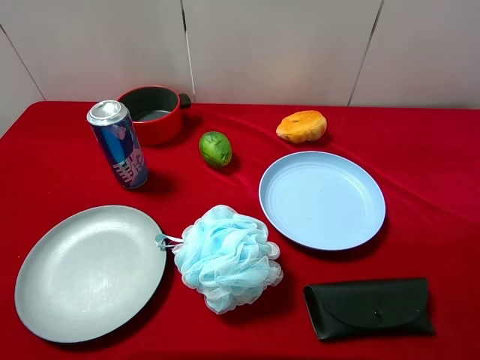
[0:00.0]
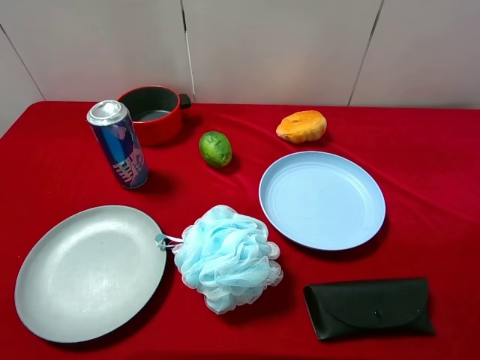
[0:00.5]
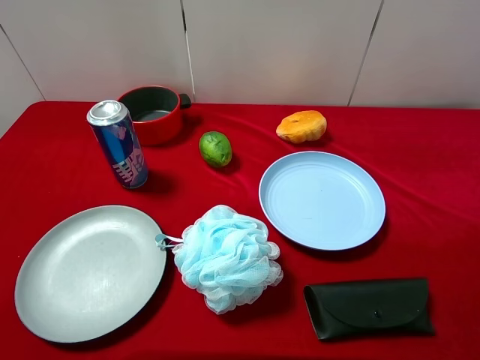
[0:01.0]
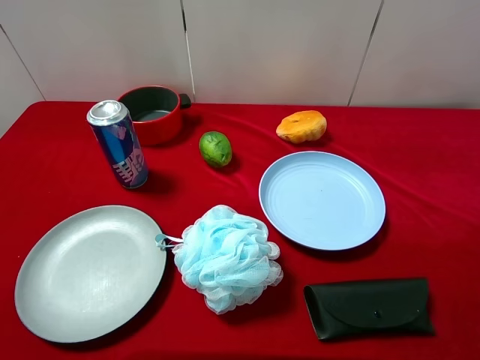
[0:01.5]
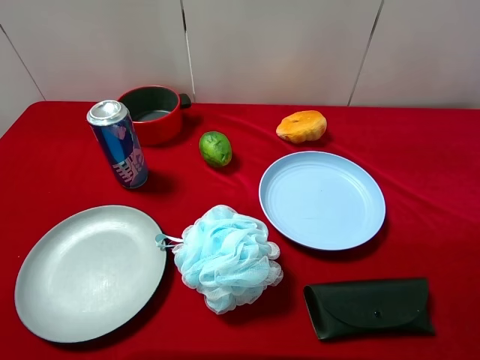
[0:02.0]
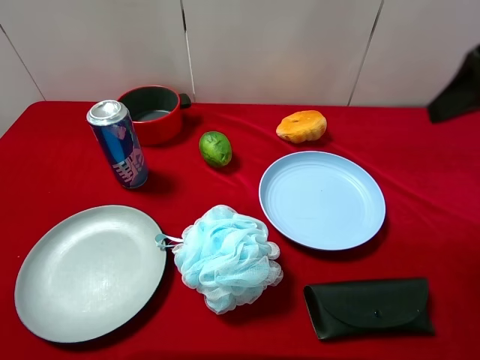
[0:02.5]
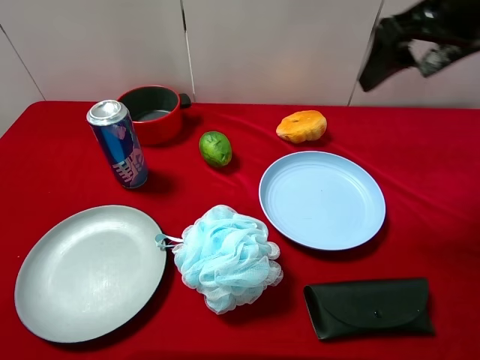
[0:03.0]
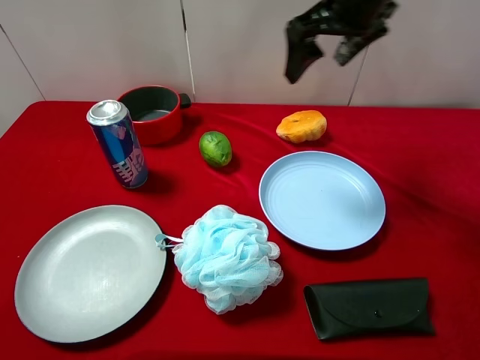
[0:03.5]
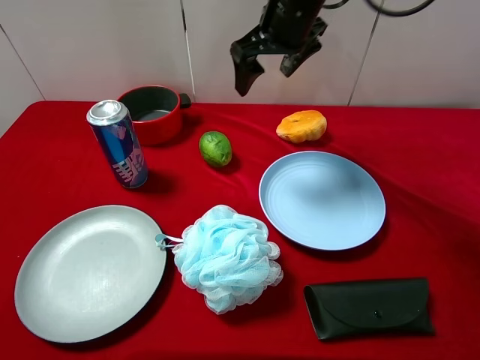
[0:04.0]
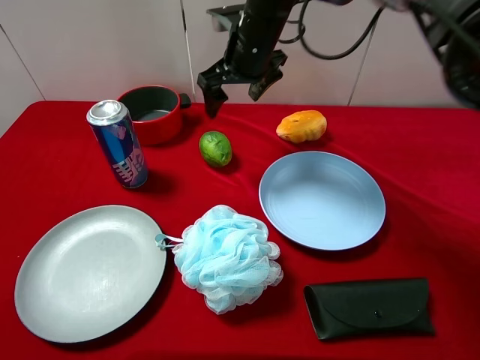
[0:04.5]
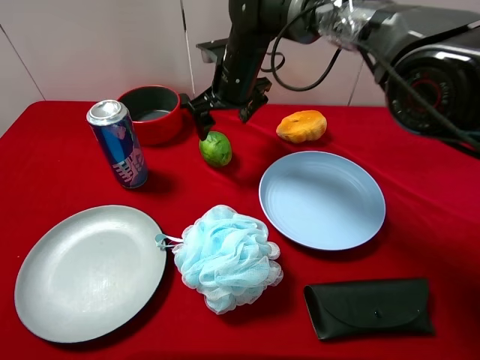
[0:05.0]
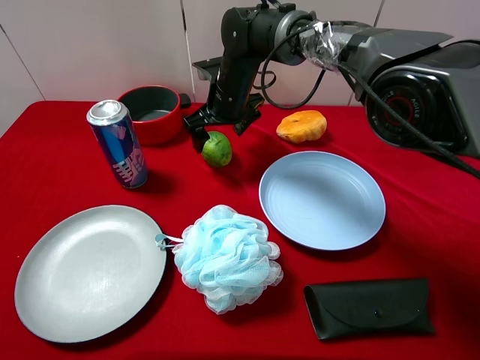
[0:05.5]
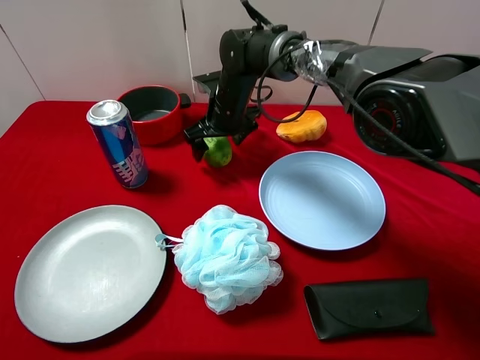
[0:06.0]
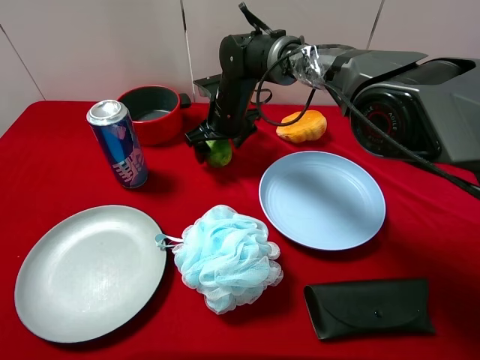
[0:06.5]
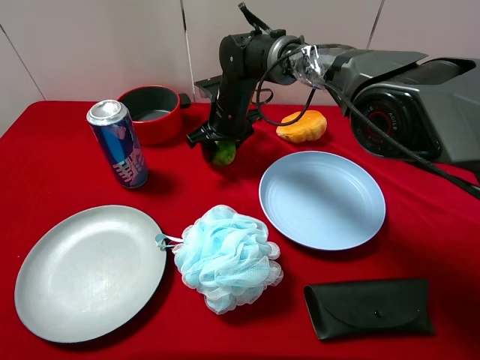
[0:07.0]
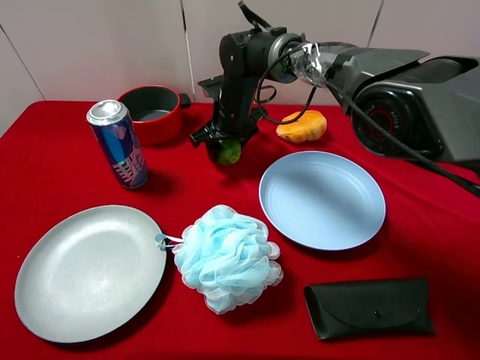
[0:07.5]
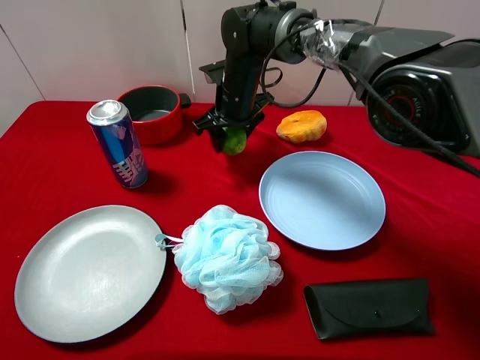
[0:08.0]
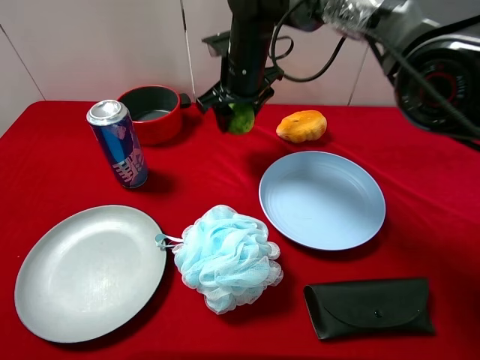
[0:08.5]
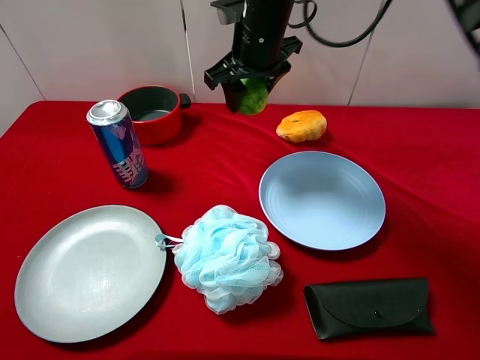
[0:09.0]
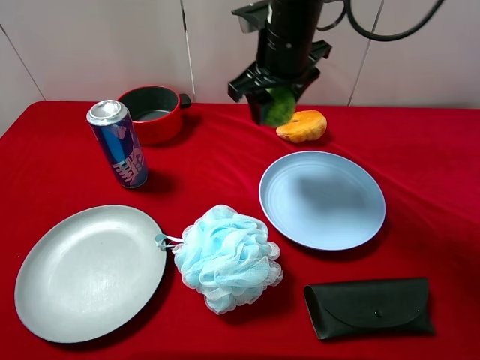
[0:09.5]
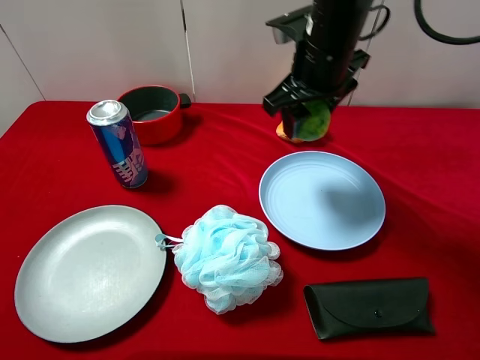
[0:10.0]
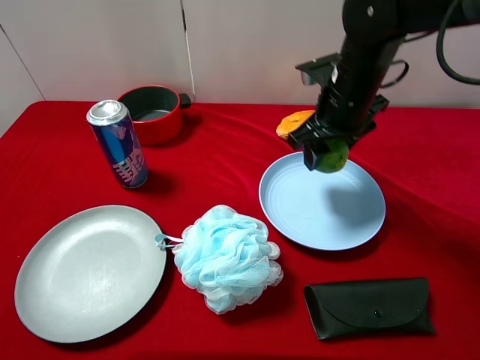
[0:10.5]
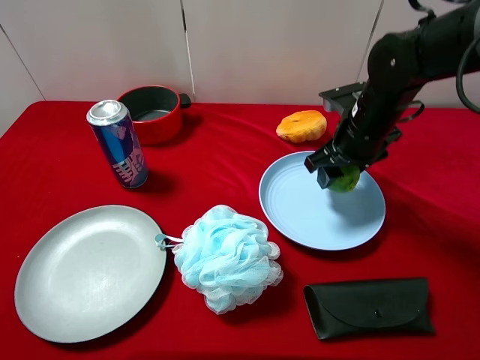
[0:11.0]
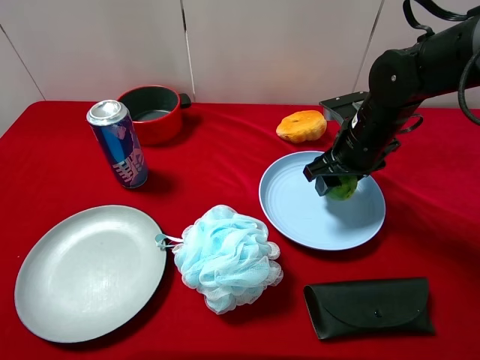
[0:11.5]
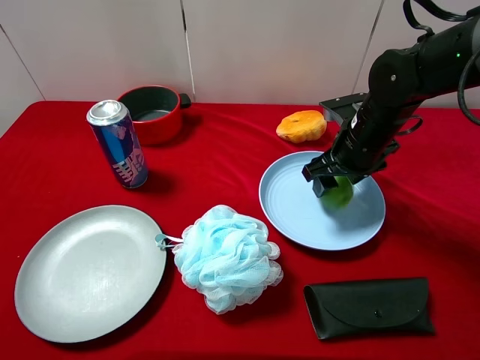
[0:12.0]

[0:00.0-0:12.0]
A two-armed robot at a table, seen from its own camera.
Task of the whole recording: pick up an item with a gripper and place it in a random container on the desktop.
0:02.0 to 0:04.0: The right gripper travels forward and to the left by about 35 cm.
0:04.0 to 0:06.0: The right gripper moves downward and to the left, some 20 cm.
0:06.0 to 0:08.0: The right gripper closes.
0:08.0 to 0:10.0: The right gripper travels to the right, upward and backward by about 15 cm.
0:10.0 to 0:12.0: The right gripper heads downward and to the right, covering roughly 15 cm, and opens up.

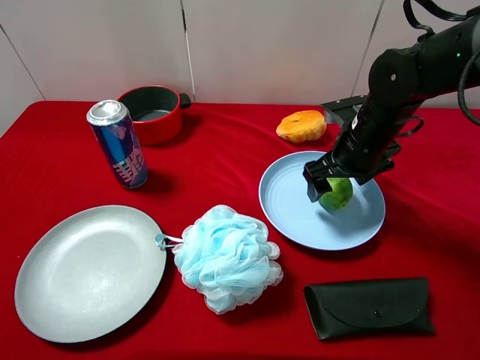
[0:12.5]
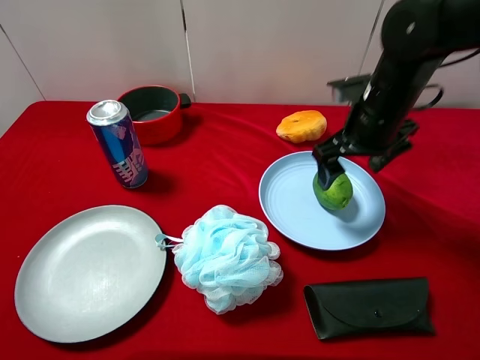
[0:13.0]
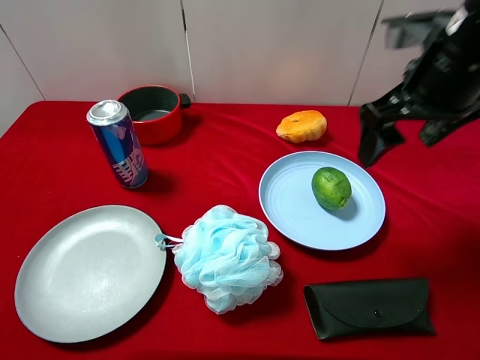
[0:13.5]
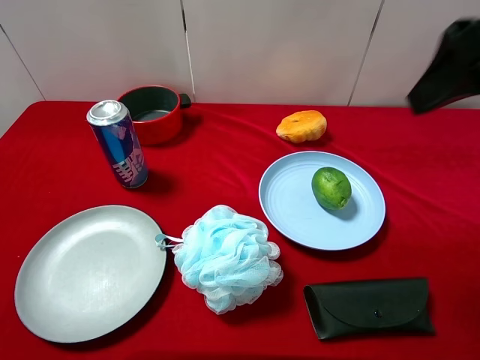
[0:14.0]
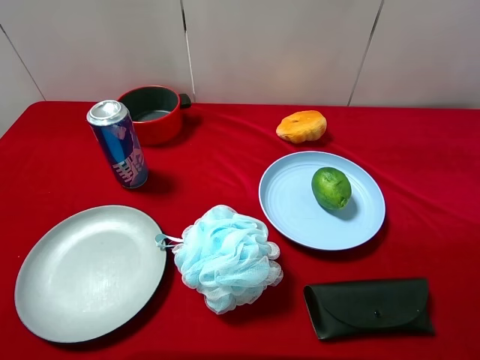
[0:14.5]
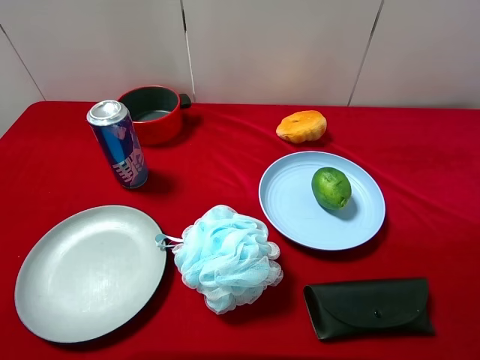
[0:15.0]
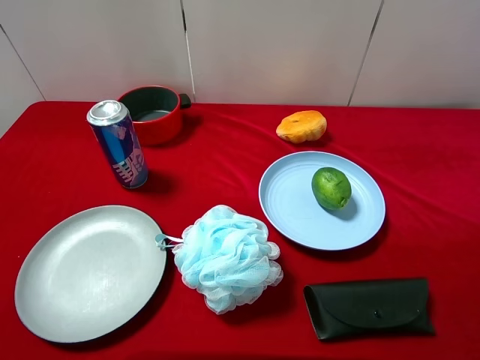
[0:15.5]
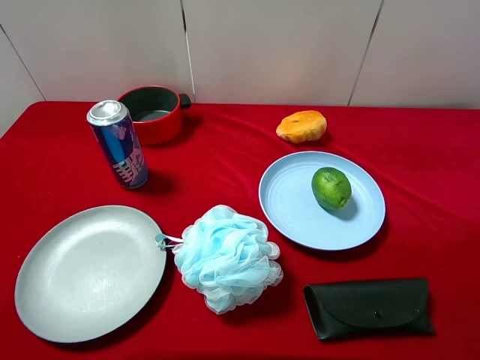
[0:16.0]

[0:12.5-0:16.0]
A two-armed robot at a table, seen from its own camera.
Task of the whole recording: pick up an item with a gripper and place it in a random container on the desktop.
0:12.5 to 0:14.5: The right gripper travels backward, upward and to the right by some 35 cm.

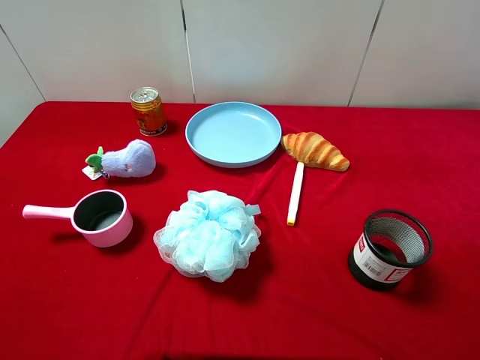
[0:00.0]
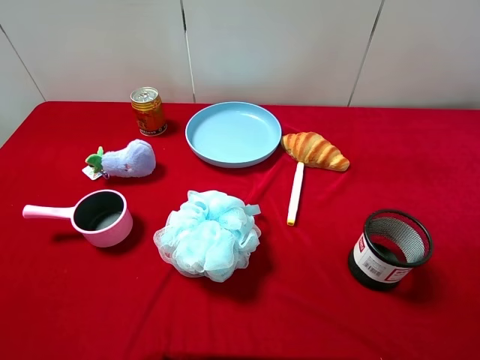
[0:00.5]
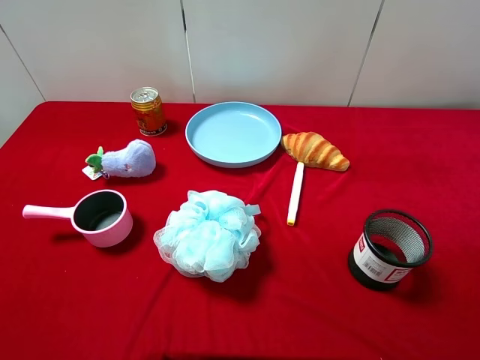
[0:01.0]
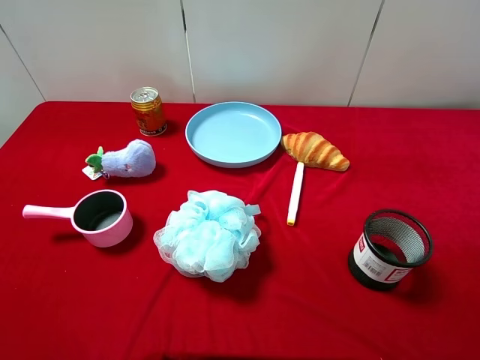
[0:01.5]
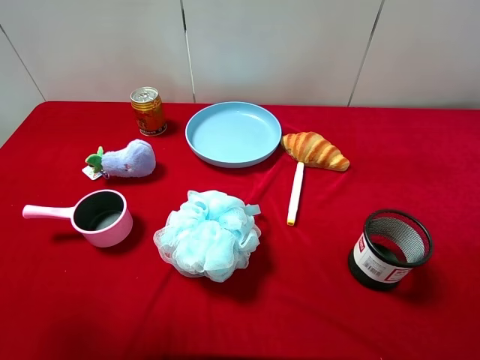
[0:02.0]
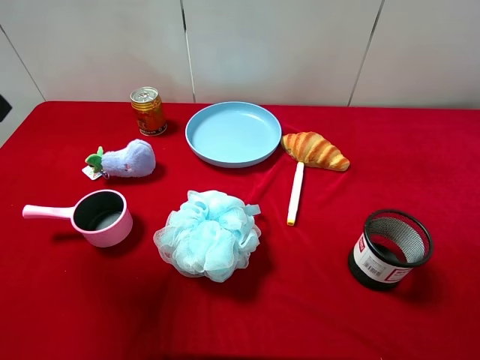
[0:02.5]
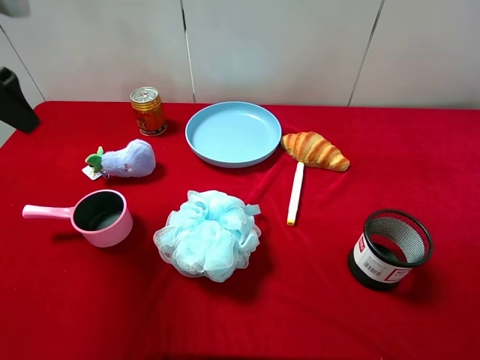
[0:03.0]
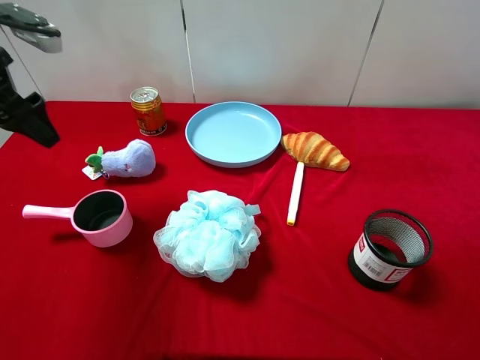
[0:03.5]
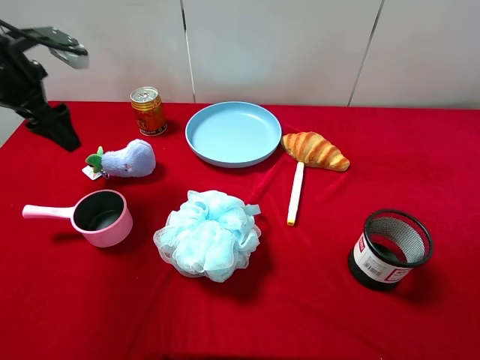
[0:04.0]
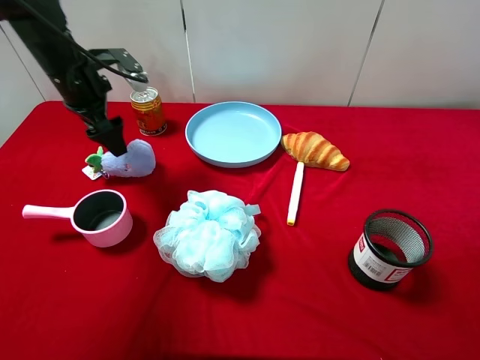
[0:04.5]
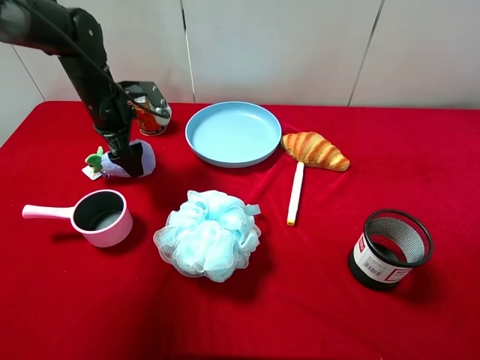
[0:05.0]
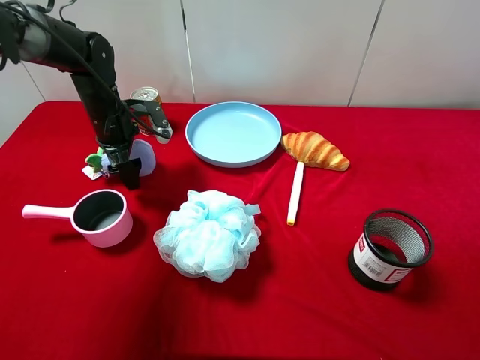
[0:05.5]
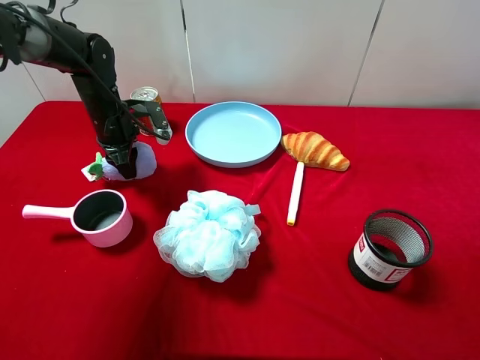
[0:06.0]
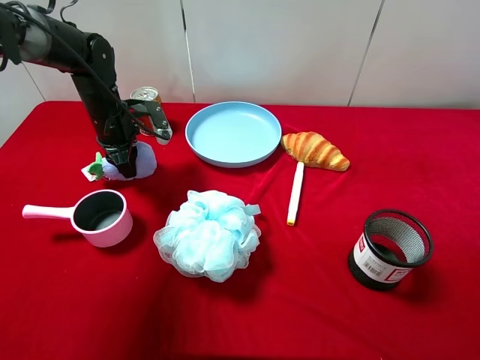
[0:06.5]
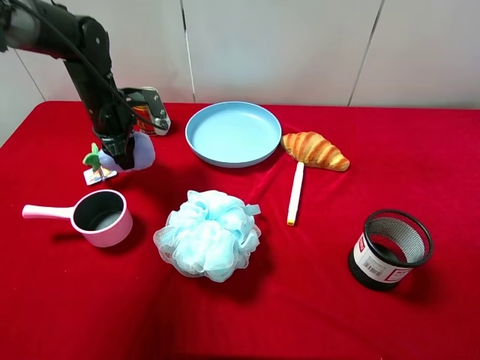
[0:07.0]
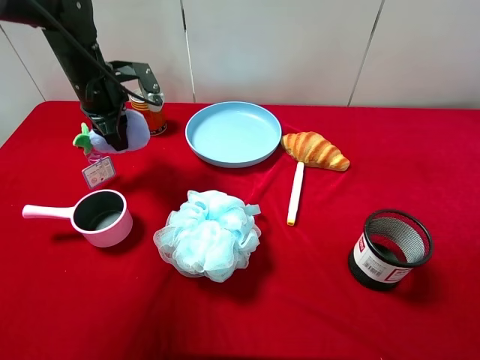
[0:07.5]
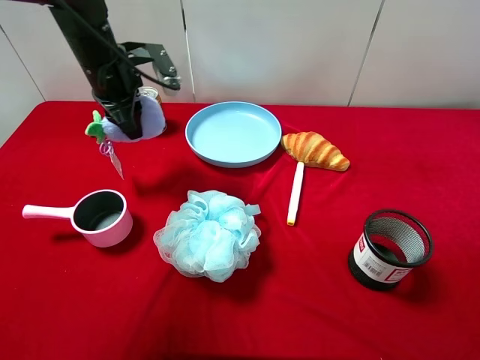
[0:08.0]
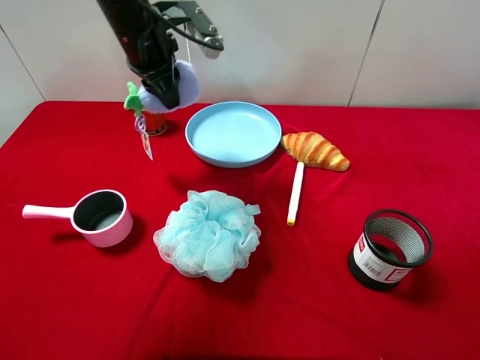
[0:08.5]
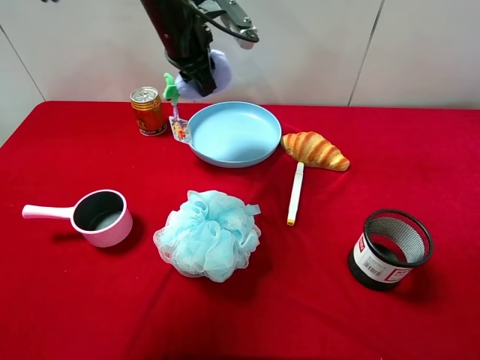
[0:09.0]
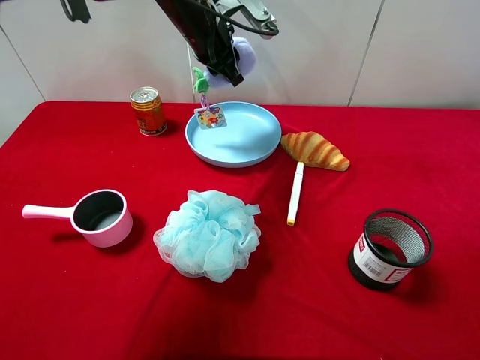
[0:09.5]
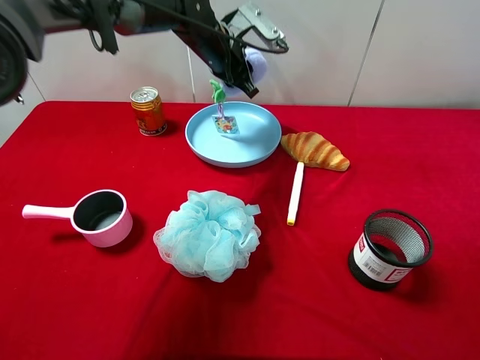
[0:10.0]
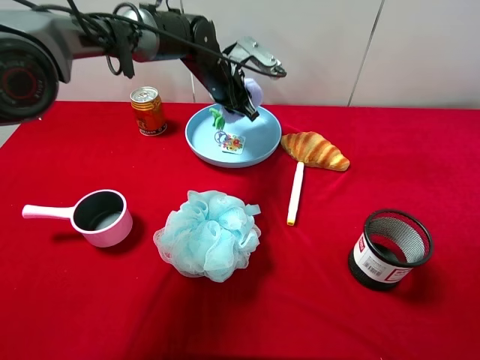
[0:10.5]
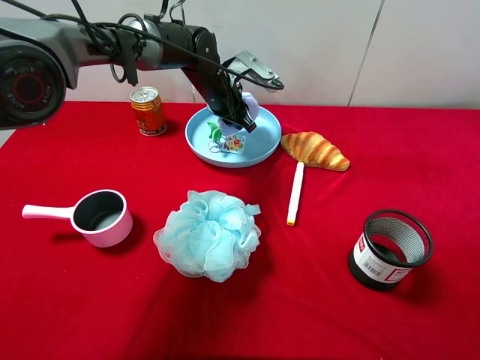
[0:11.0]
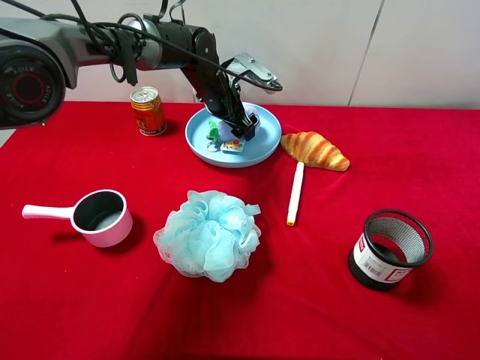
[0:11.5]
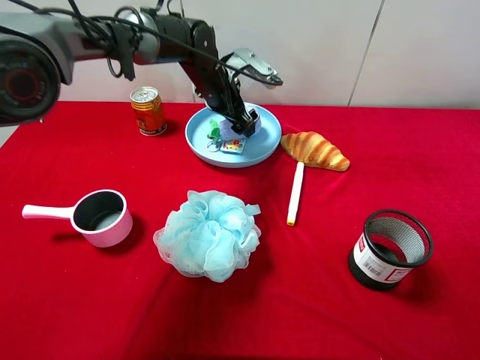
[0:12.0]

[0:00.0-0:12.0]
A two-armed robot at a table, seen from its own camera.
Task of the whole recording: pick up an item with a gripper and place it in a random container on the desktop.
0:02.0 to 0:04.0: The left gripper travels forward and downward by approximately 25 cm.
0:04.0 to 0:06.0: The left gripper moves downward, to the right and forward, some 15 cm, and closes.
0:06.0 to 0:08.0: The left gripper heads upward, covering roughly 10 cm.
0:08.0 to 0:10.0: The left gripper moves to the right and forward, approximately 15 cm.
0:10.0 to 0:12.0: The left gripper shifts roughly 5 cm downward, and opens its fingers.
